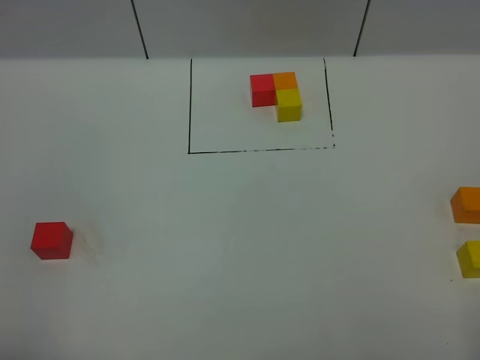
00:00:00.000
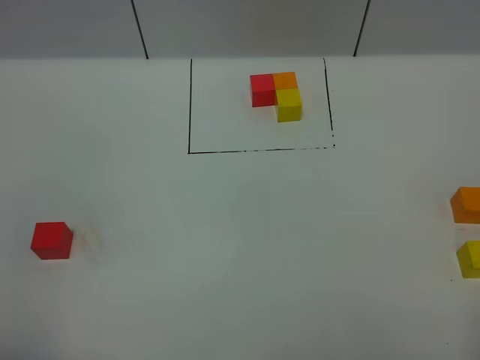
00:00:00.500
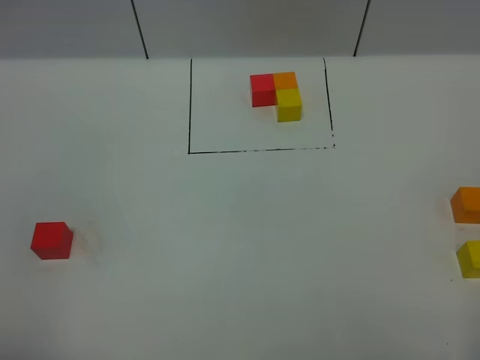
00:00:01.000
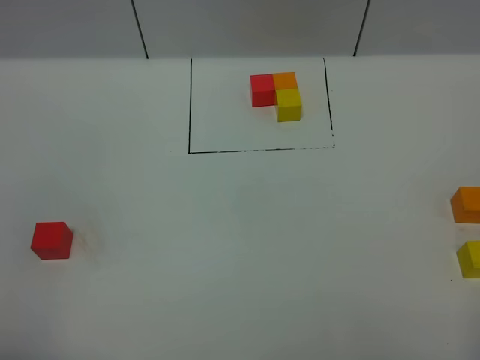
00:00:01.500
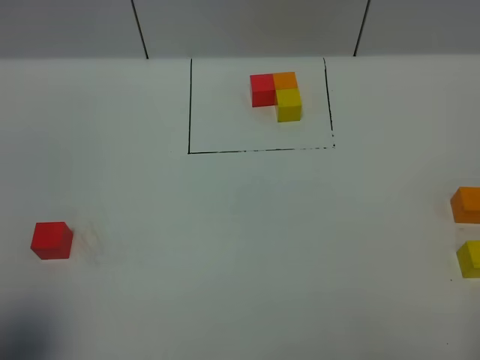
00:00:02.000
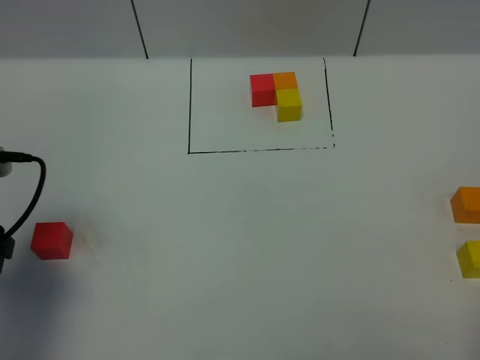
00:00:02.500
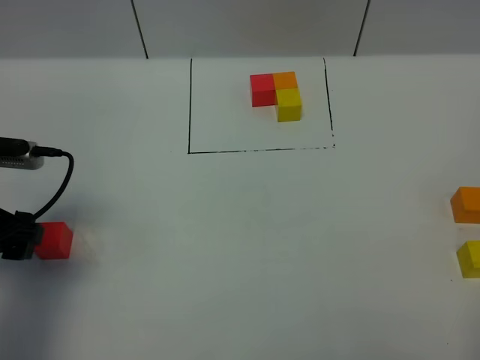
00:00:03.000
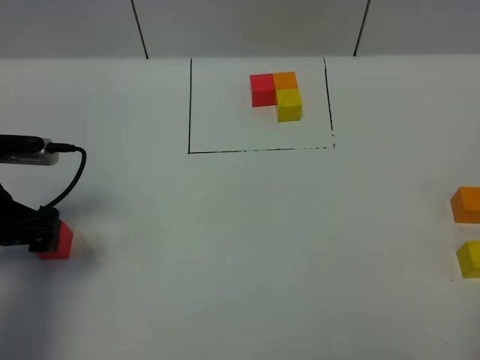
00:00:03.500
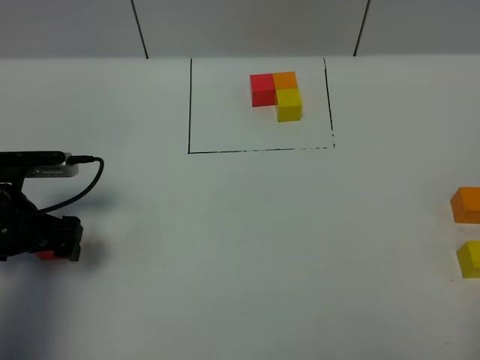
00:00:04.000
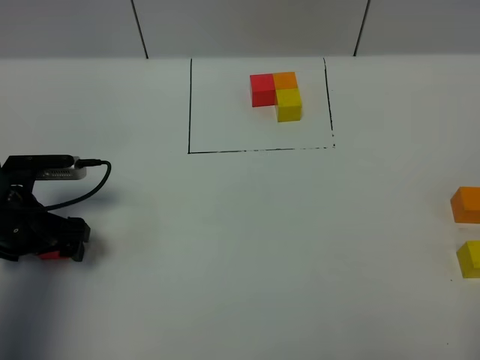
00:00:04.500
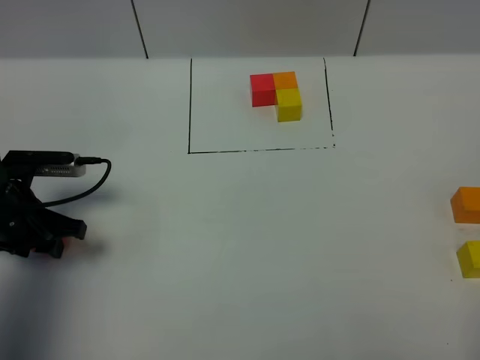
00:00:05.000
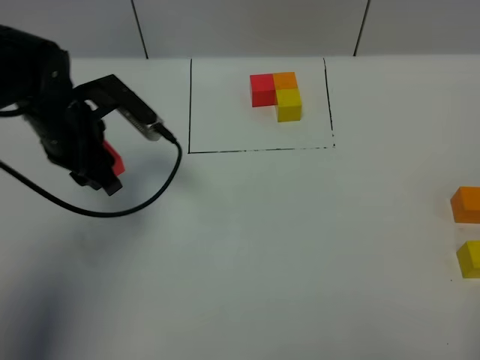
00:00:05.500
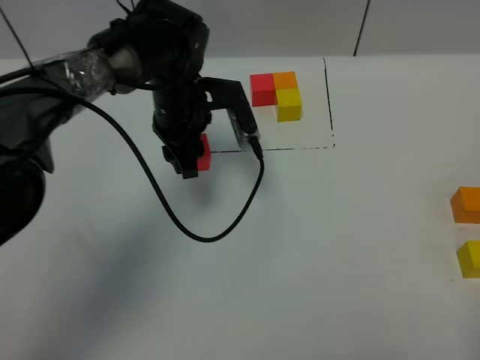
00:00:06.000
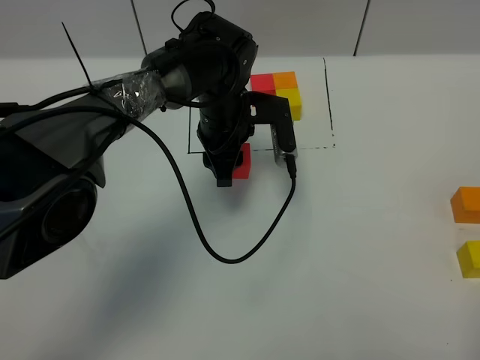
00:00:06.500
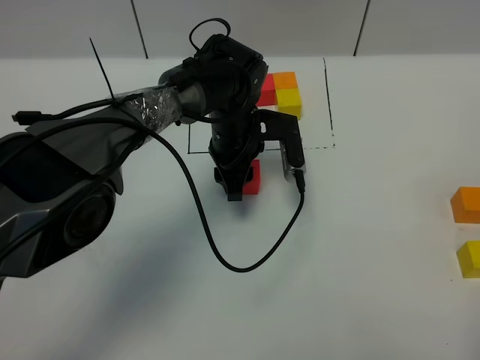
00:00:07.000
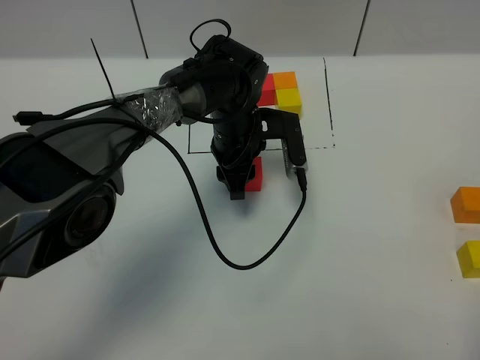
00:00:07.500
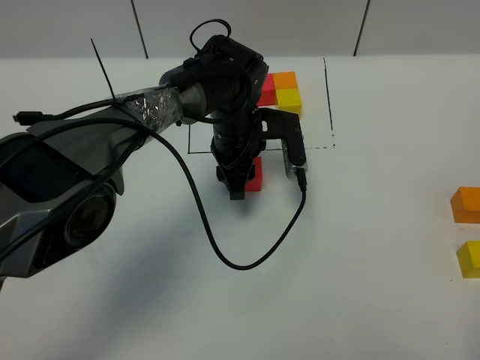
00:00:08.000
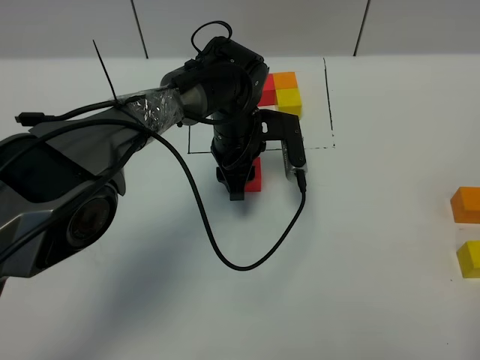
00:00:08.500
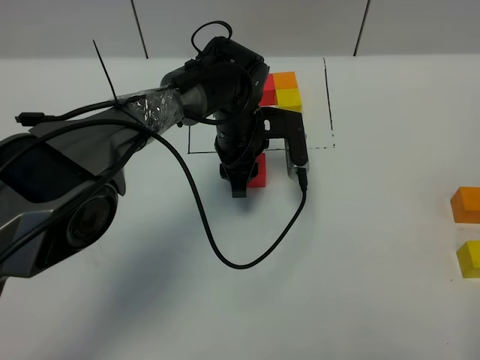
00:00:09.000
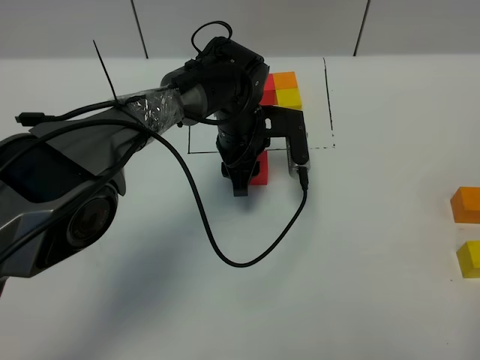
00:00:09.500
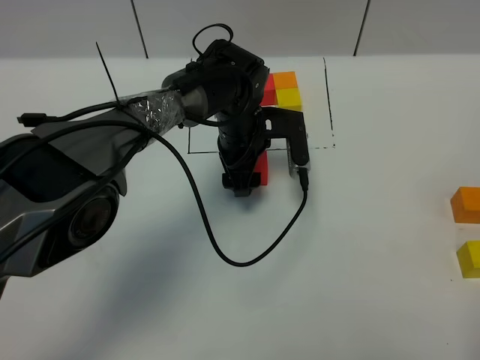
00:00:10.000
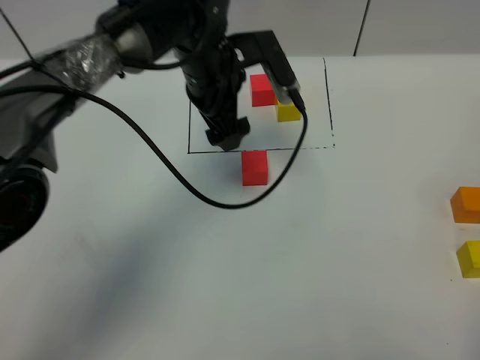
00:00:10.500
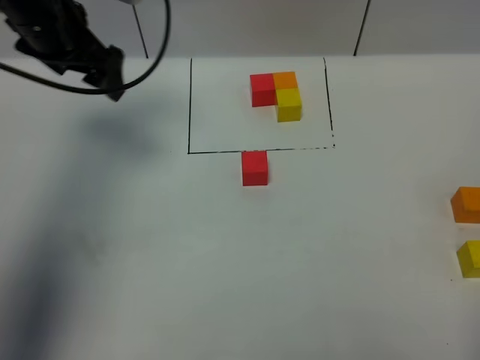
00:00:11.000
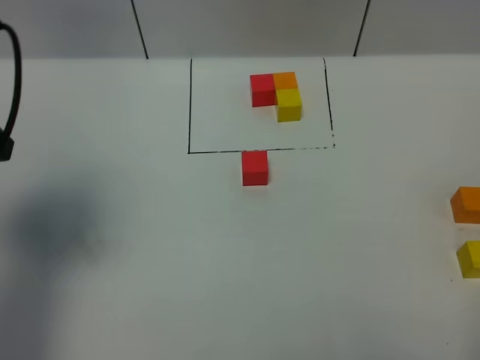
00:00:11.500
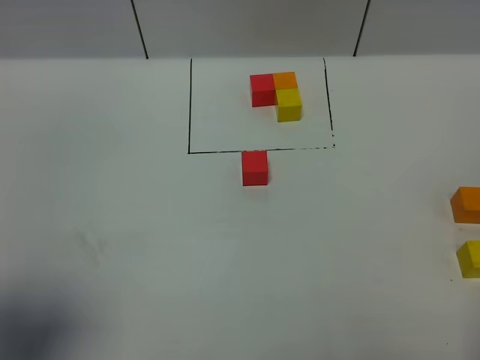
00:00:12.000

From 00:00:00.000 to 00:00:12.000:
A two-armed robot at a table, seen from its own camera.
Task of the whole recording: According to the building block template in front, assemble the scattered blocks together.
Step, from 00:00:00.000 to 00:00:09.500: Put the red build block in the center of the table.
From 00:00:00.000 to 00:00:02.000: The left gripper heads forward, covering roughly 5 cm.
From 00:00:02.000 to 00:00:04.000: The left gripper heads forward and downward, covering some 25 cm.
From 00:00:04.000 to 00:00:06.000: The left gripper is displaced to the right and forward by roughly 25 cm, and closes.
From 00:00:06.000 to 00:00:08.000: The left gripper shifts some 5 cm to the right.
From 00:00:08.000 to 00:00:10.000: The left gripper opens up.
From 00:00:10.000 to 00:00:12.000: The left gripper heads backward, to the left and upward, covering about 50 cm.

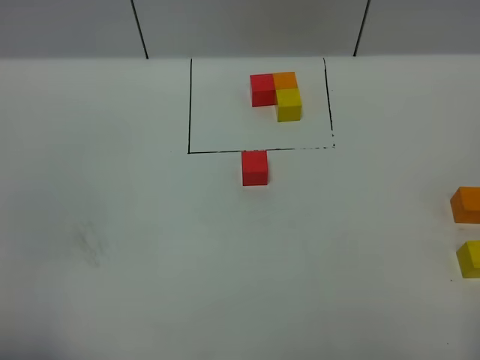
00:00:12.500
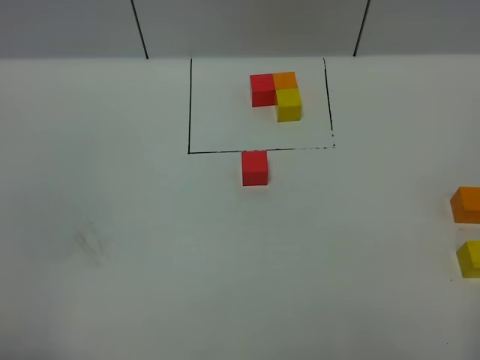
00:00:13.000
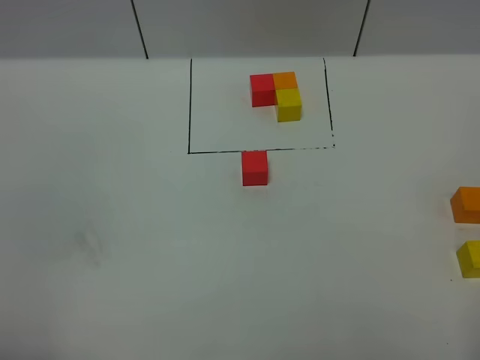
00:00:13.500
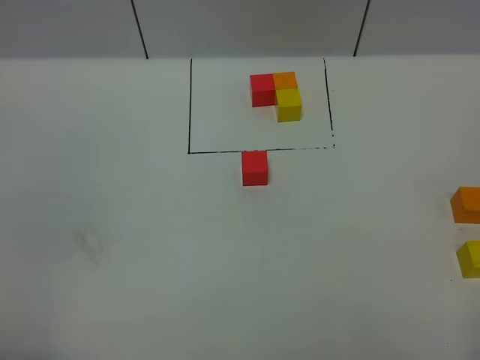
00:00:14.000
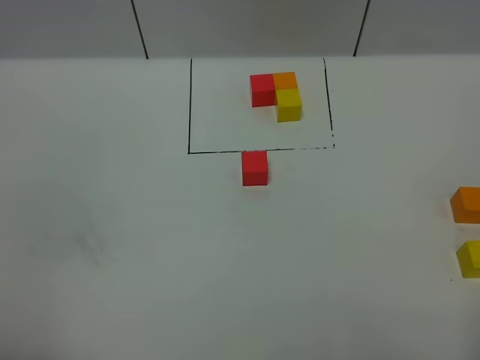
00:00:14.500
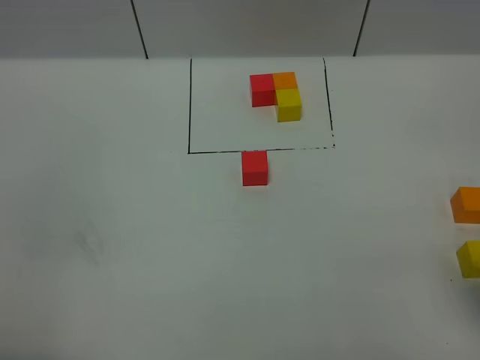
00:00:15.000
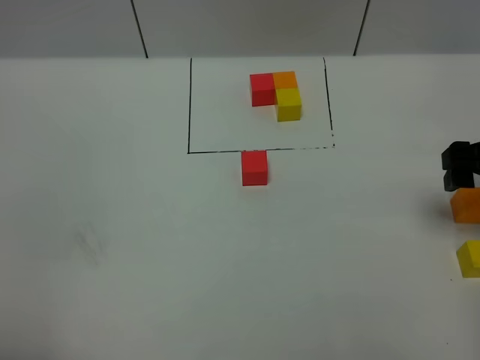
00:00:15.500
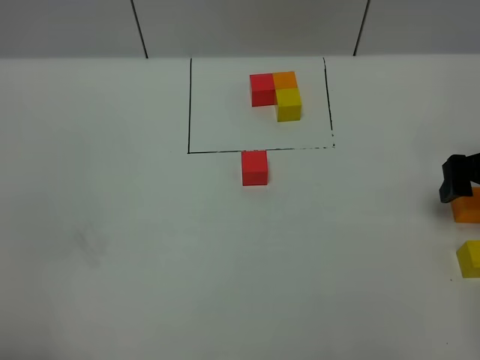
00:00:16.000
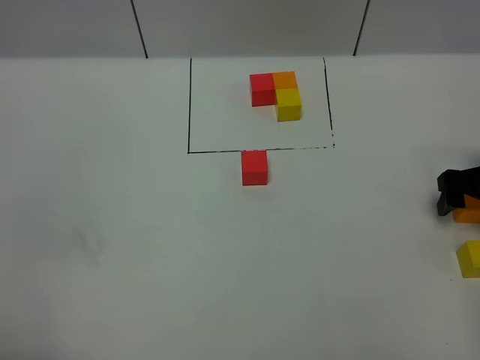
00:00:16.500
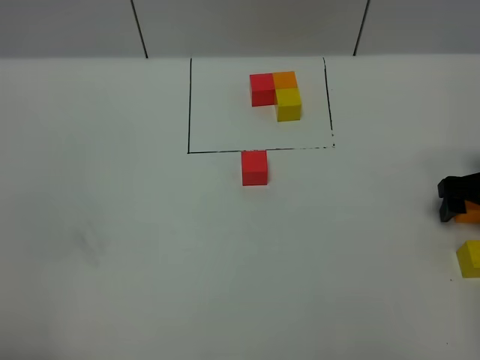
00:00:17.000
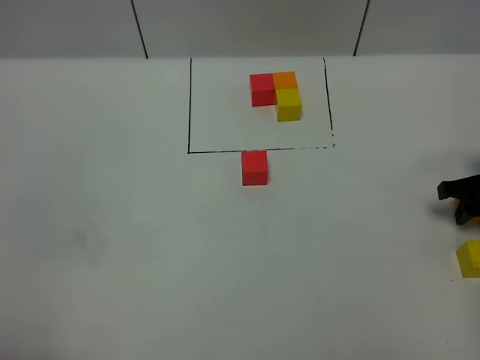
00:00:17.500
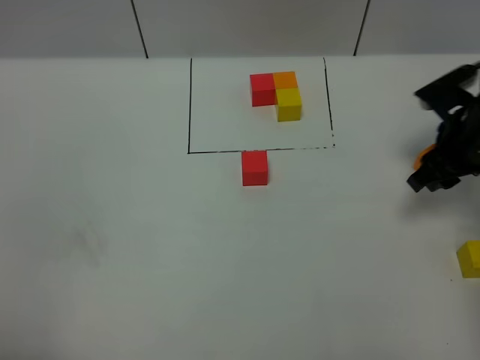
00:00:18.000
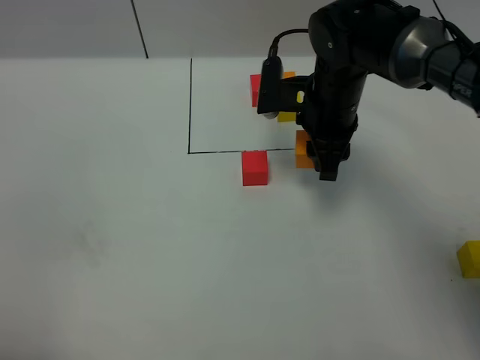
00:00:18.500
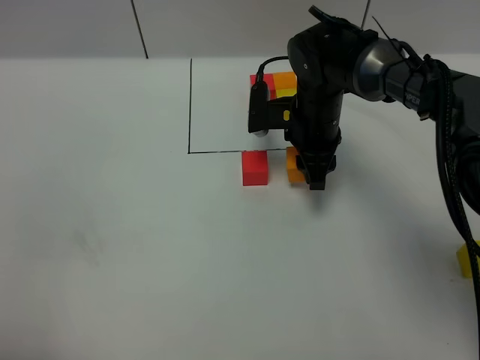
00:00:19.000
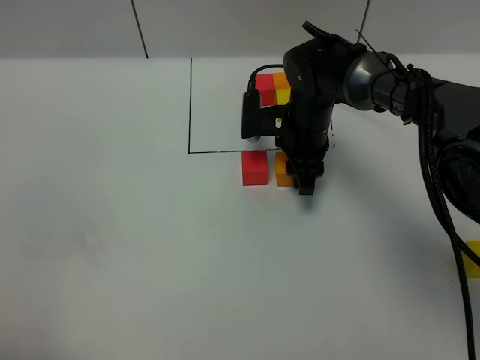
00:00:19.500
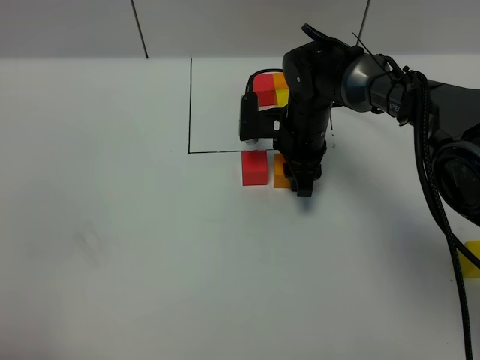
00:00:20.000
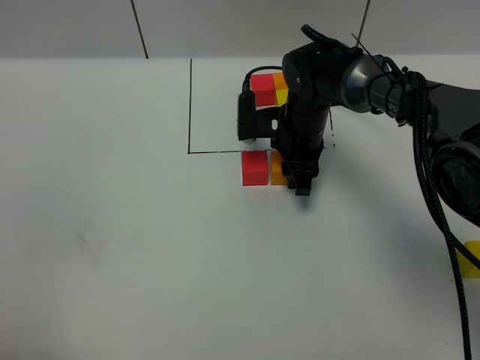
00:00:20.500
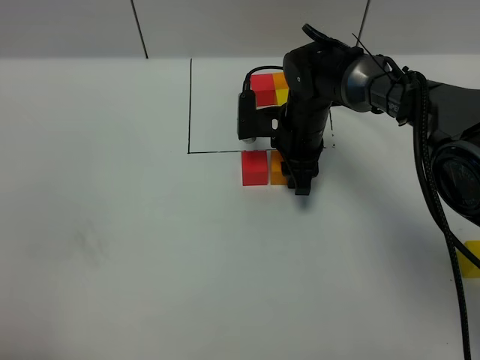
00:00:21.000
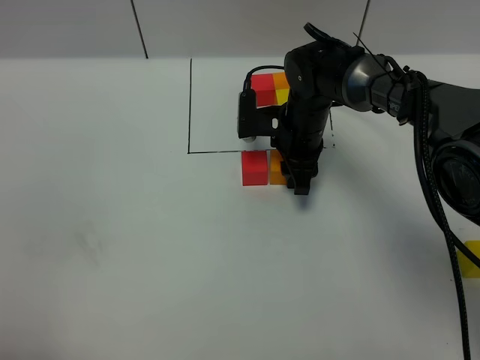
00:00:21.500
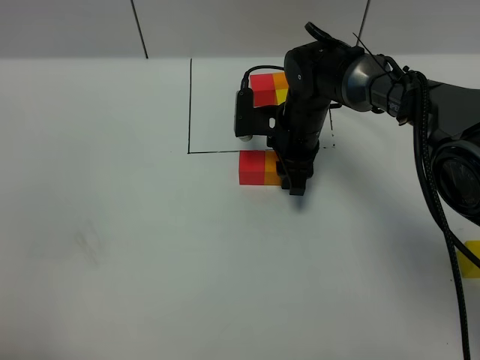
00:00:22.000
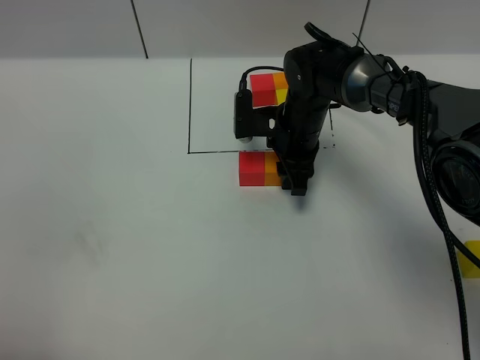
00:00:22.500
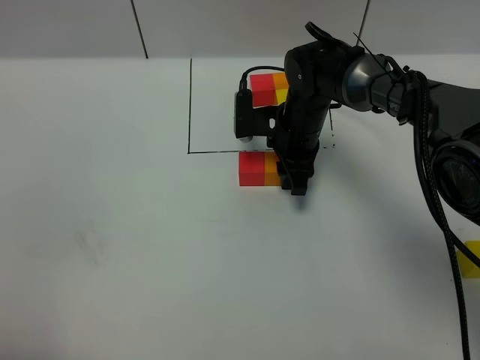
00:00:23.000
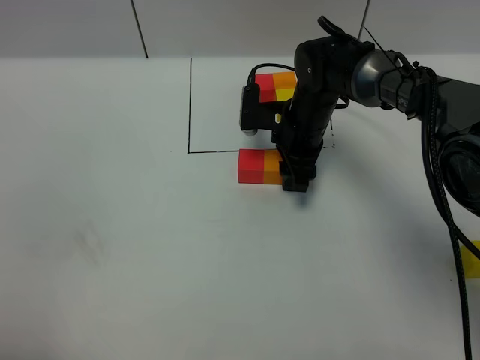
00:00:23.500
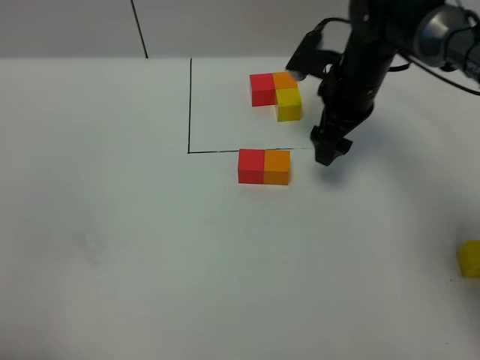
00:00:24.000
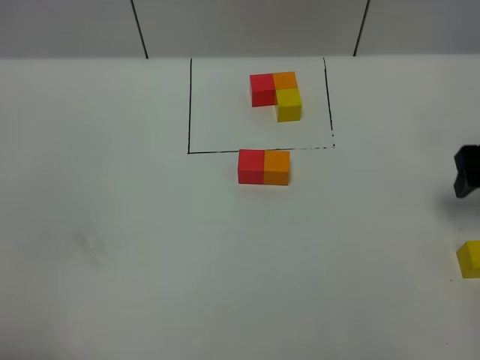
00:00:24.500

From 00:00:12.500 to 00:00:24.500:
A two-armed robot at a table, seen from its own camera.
Task of the whole recording: According to the building block template in front, assemble the scattered blocks together.
Step, from 00:00:12.500 to 00:00:23.000: Put the orange build block on the right of the red build block.
From 00:00:14.500 to 00:00:16.500: The right gripper travels forward and downward by about 35 cm.
From 00:00:16.500 to 00:00:18.500: The right gripper moves to the left, about 25 cm, and closes.
From 00:00:18.500 to 00:00:20.500: The right gripper heads downward, covering some 10 cm.
From 00:00:20.500 to 00:00:22.500: Both grippers stay put.
From 00:00:22.500 to 00:00:24.500: The right gripper goes roughly 30 cm to the right and backward, and opens its fingers.

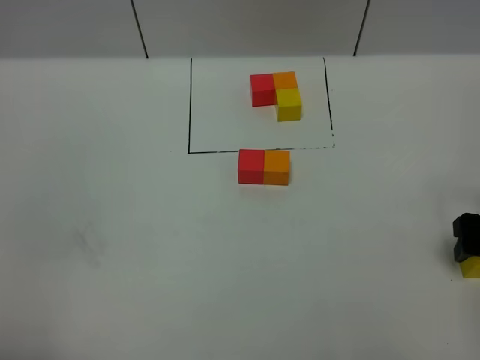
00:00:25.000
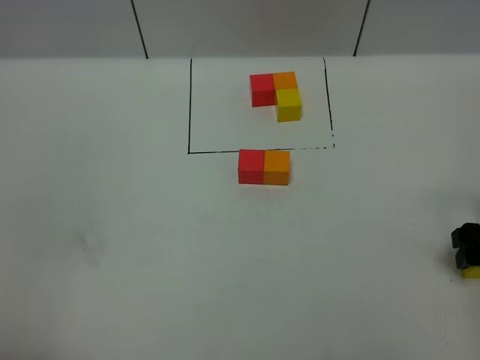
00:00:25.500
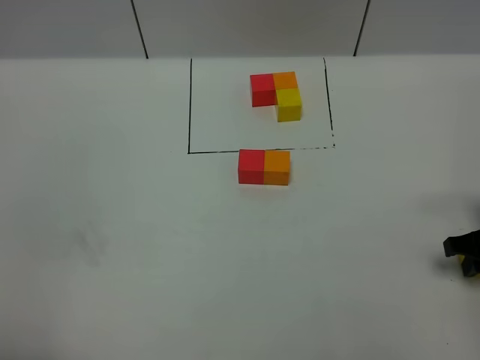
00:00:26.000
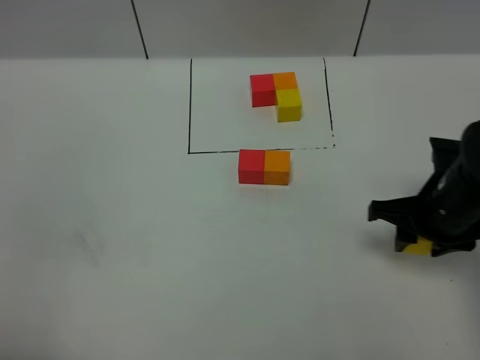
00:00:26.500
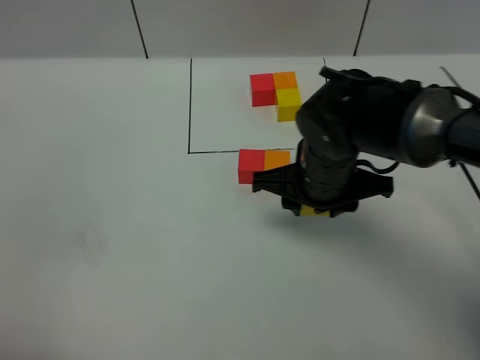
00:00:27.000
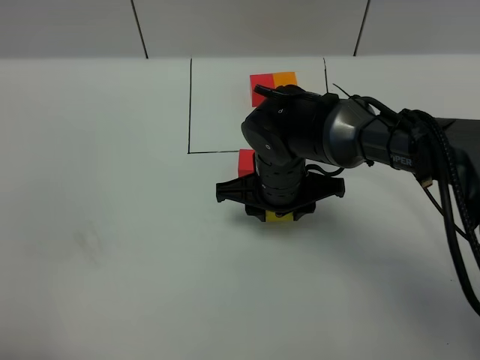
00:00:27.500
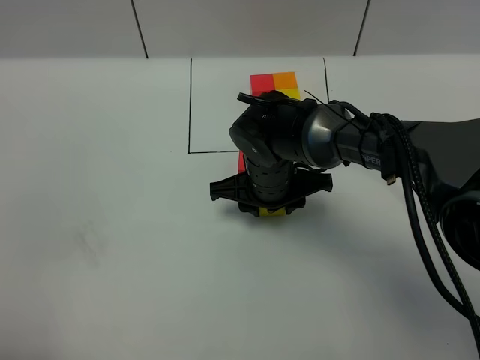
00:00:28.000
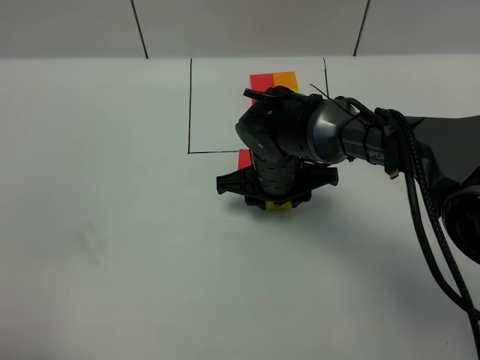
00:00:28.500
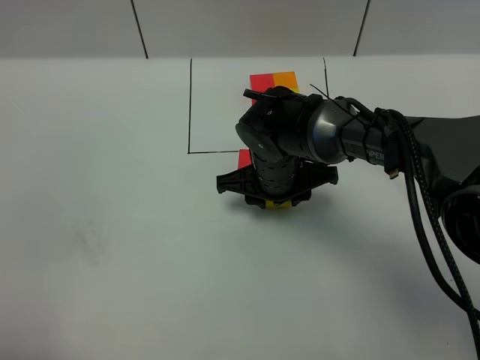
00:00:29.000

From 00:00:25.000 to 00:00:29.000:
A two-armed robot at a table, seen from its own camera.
Task of the whole recording: According to the building block template in front, assemble the scattered blocks together.
From 00:00:25.000 to 00:00:27.000: The right gripper goes some 25 cm to the left, and closes its fingers.
From 00:00:27.000 to 00:00:29.000: The right gripper heads downward, covering some 5 cm.
